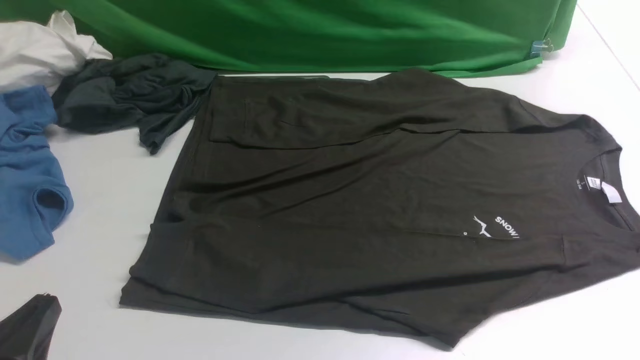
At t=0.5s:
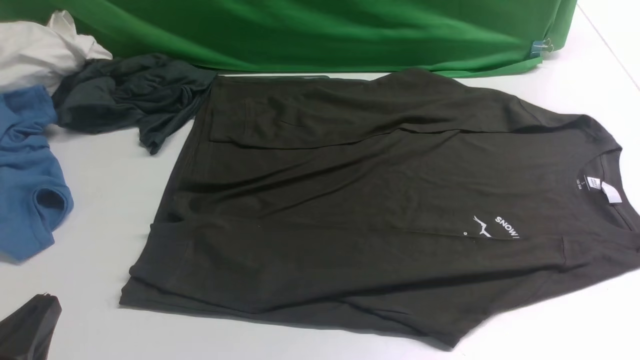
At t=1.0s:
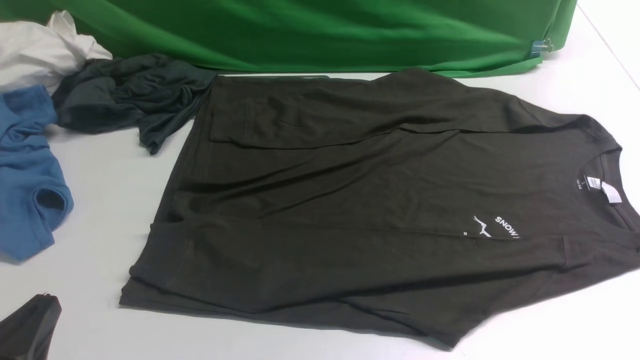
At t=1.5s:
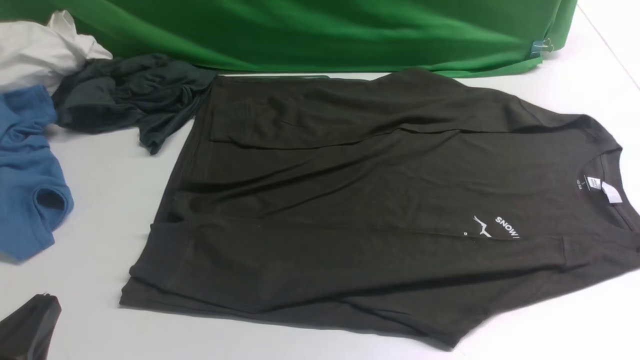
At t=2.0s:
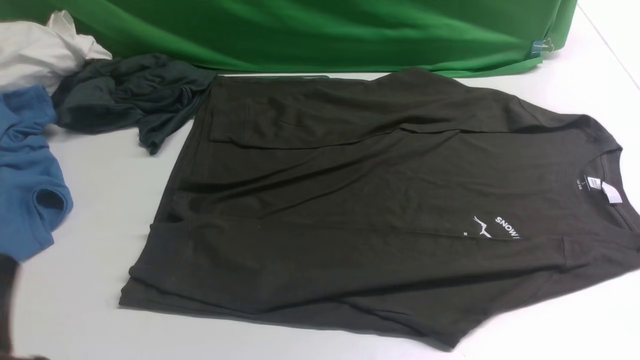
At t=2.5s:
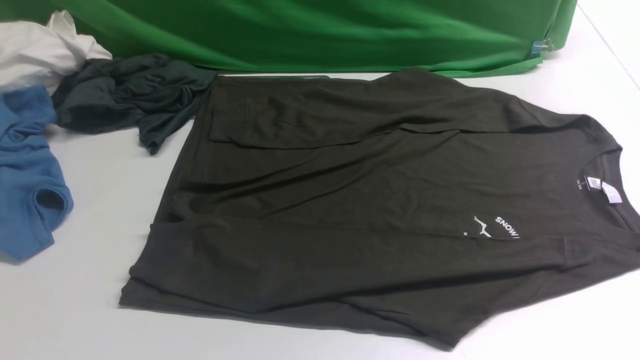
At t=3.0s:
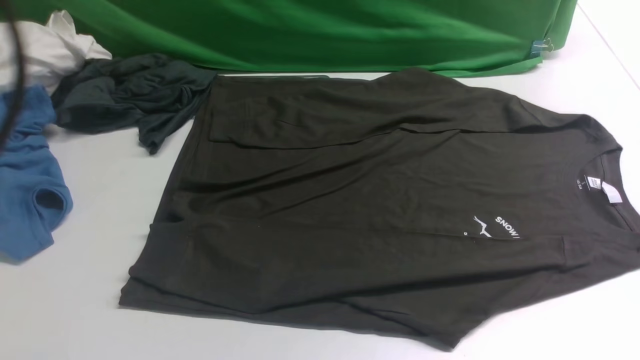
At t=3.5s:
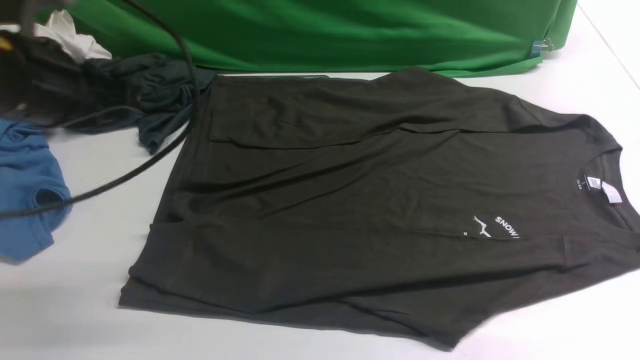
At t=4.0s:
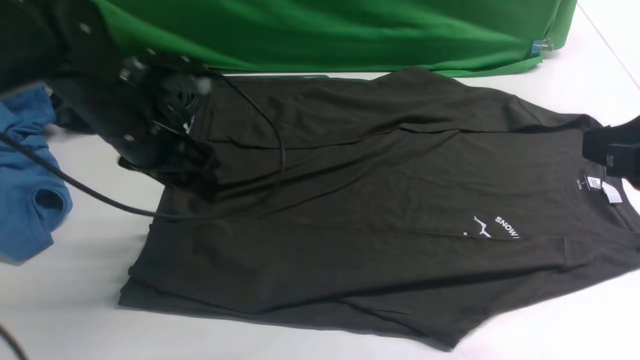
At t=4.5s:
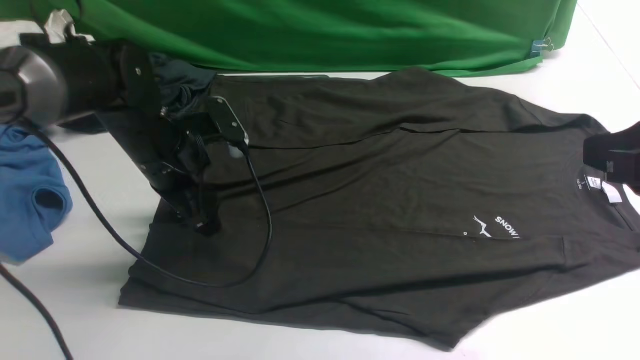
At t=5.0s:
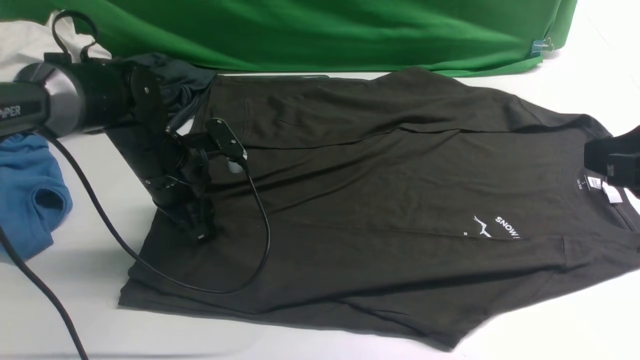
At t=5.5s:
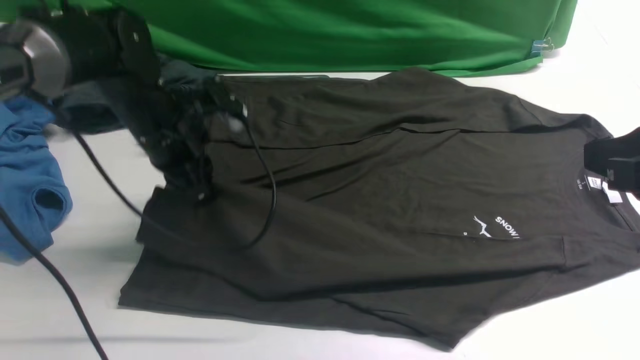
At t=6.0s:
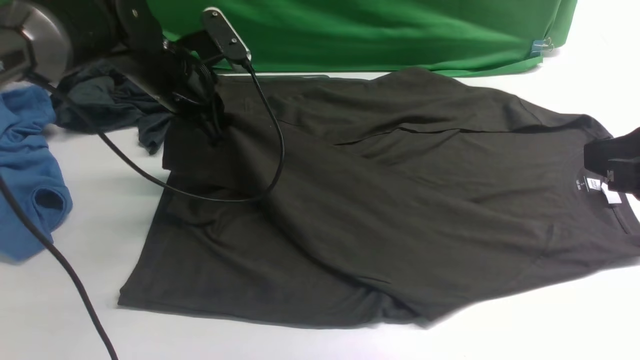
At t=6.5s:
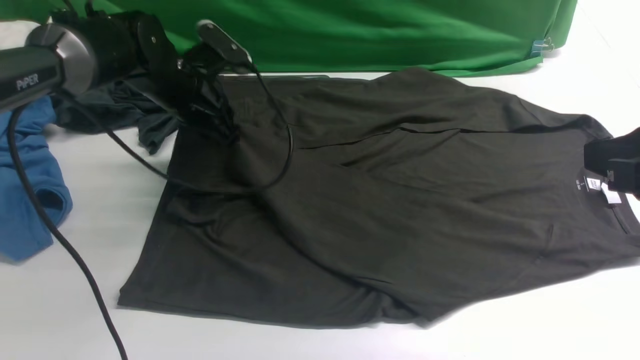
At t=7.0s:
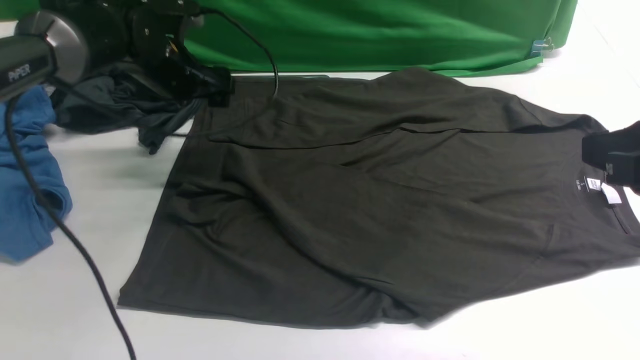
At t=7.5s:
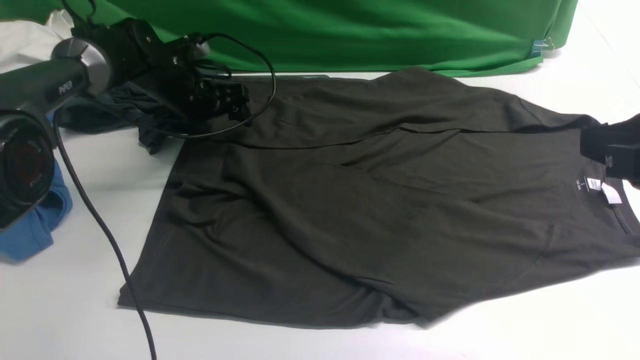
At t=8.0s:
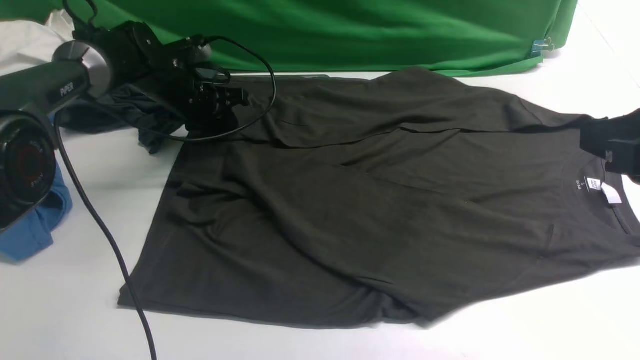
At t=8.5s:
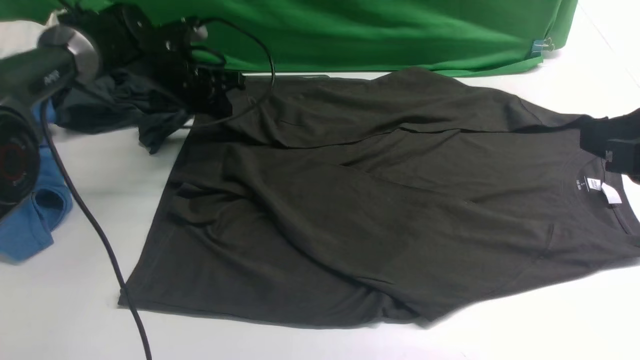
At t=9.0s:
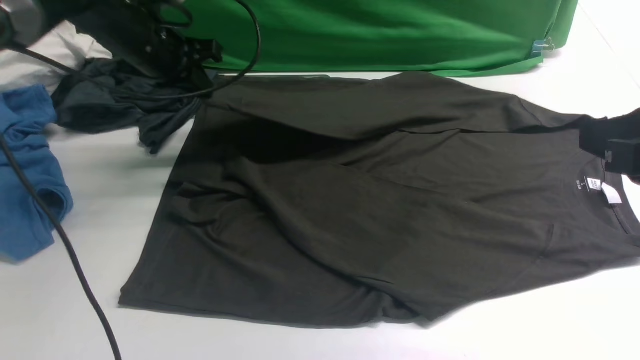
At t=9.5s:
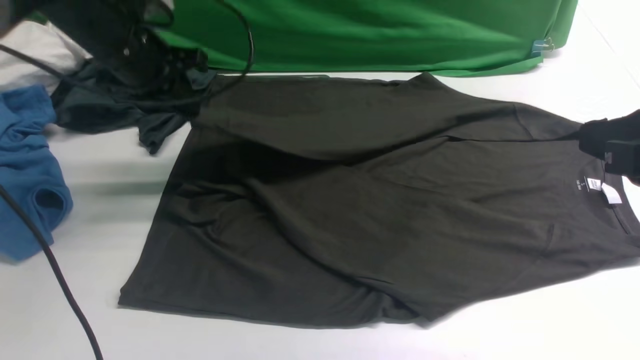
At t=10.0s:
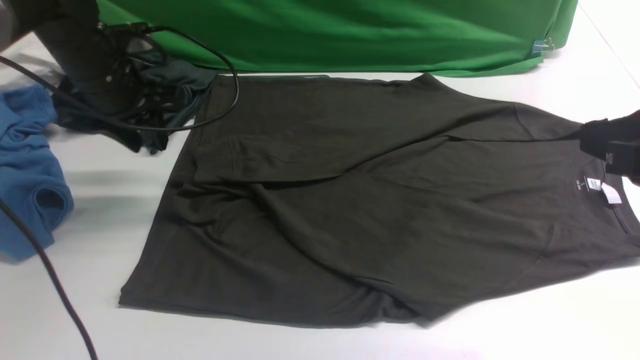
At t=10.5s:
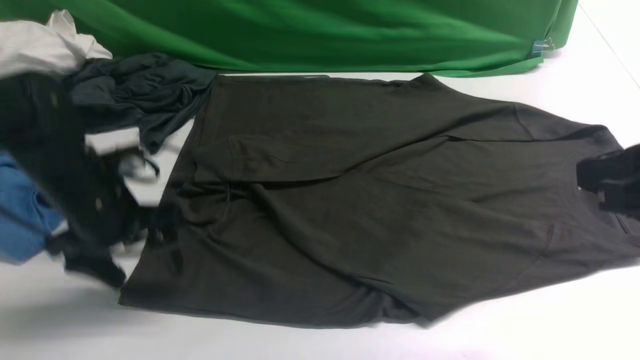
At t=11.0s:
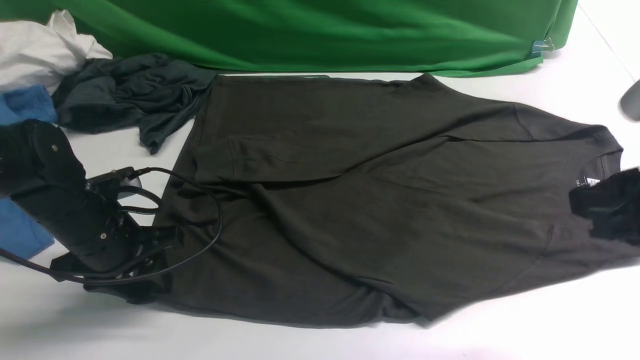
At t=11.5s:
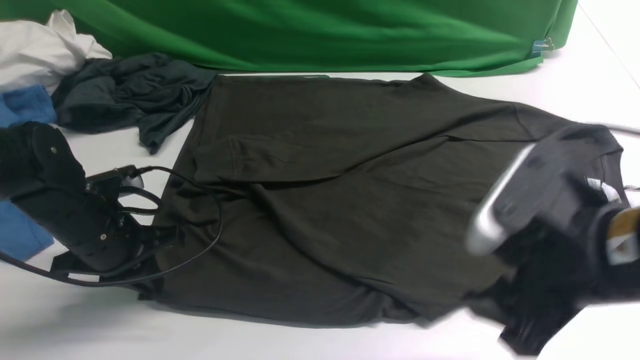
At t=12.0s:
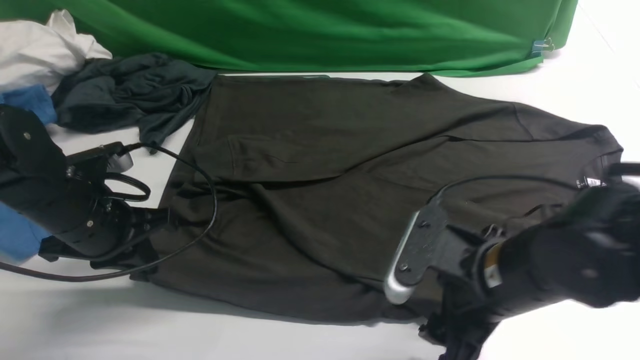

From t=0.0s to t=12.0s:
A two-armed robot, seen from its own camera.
Step, from t=0.0s to t=5.0s: use the left arm to clamp the cuff closest to it.
Step, from t=5.5s to t=6.5s: use the left arm to drag and place the cuff at the centered position on the left edge of the fabric.
Step, from t=7.0s to t=8.5s: use the left arm to clamp the cuff farthest from it.
Step, from t=9.0s to t=10.0s: use the left arm to drag and drop the cuff onto the cuff closest to the left arm.
From t=2.0s to t=4.0s: The right gripper goes some 20 cm forward, upward and to the left. Meanwhile the left gripper is displaced forward by about 30 cm, and opens its fingers.
From t=4.0s to t=6.0s: The left gripper heads forward, covering about 10 cm, and closes its fingers.
From t=6.0s to t=8.0s: The left gripper is displaced forward and downward by roughly 10 cm, and opens and closes again.
From t=8.0s to t=10.0s: The left gripper shifts some 15 cm backward and upward.
From t=10.0s to t=12.0s: The right gripper travels downward and to the left by roughly 20 cm, and opens its fingers; the left gripper heads backward and downward, covering some 15 cm, and closes its fingers.

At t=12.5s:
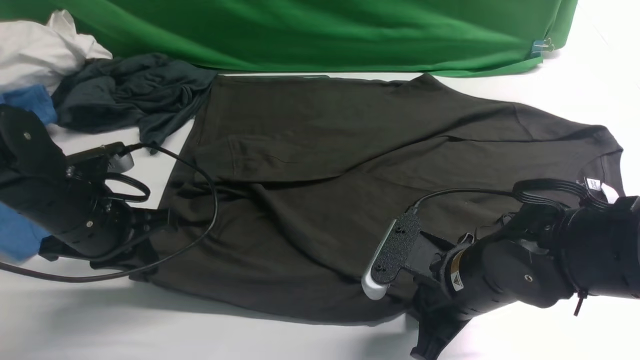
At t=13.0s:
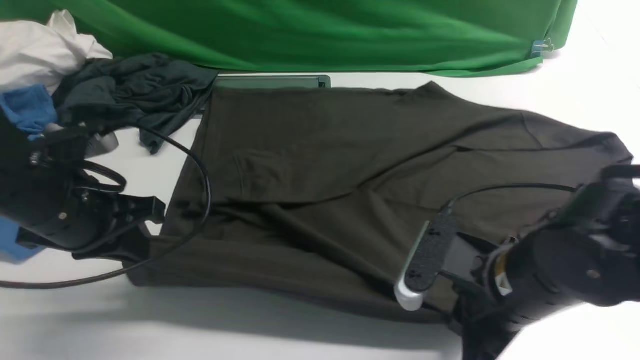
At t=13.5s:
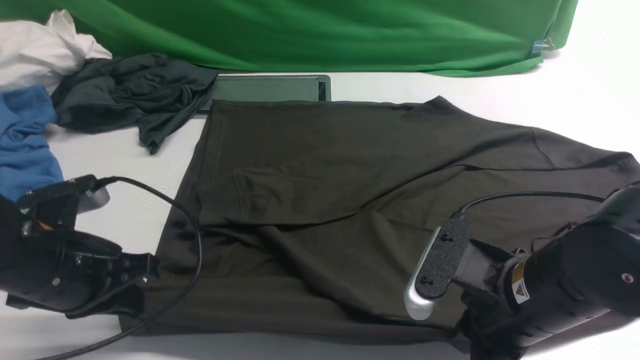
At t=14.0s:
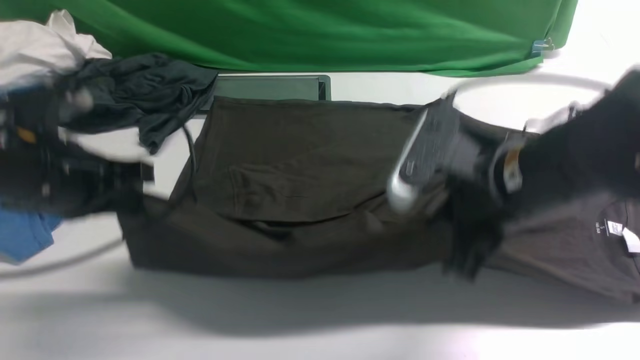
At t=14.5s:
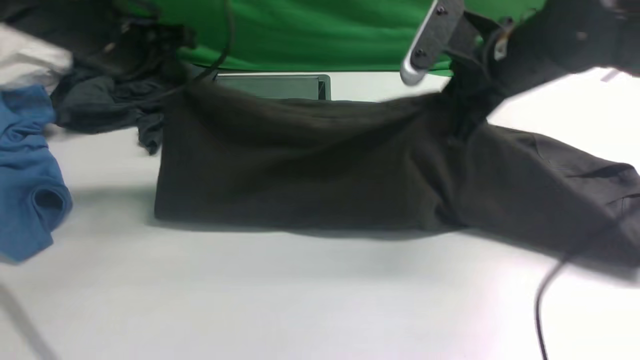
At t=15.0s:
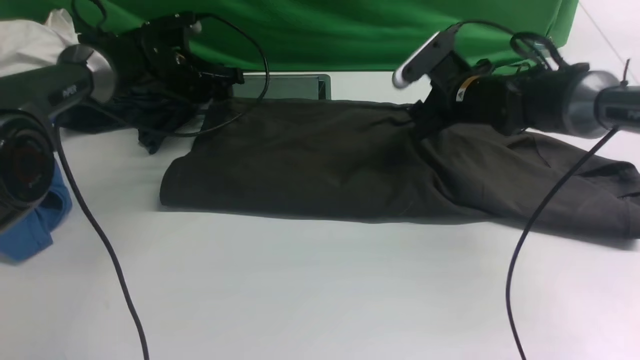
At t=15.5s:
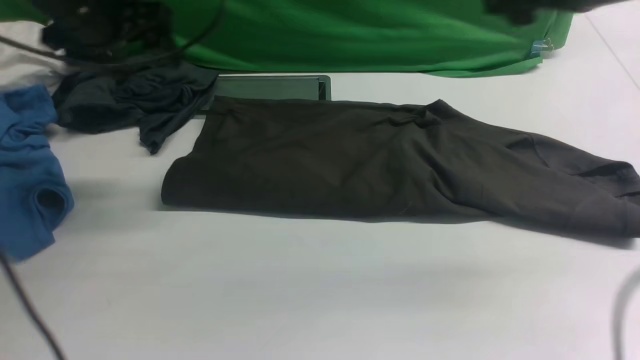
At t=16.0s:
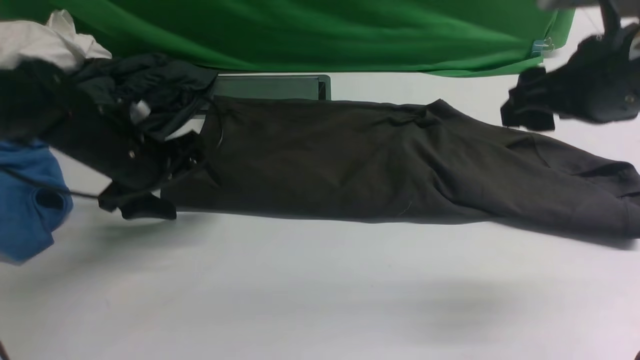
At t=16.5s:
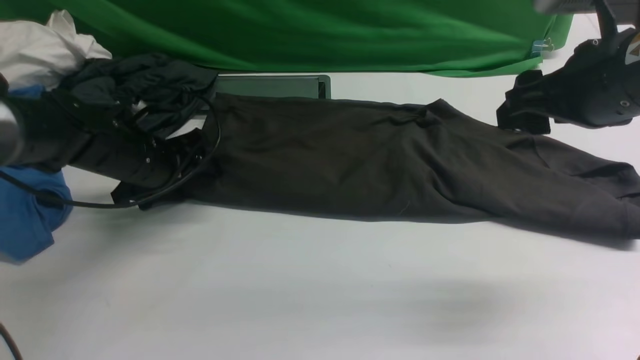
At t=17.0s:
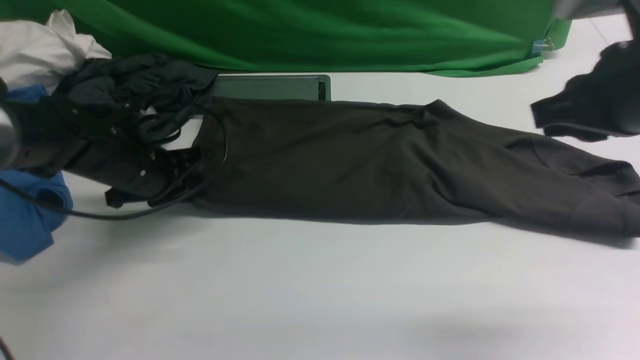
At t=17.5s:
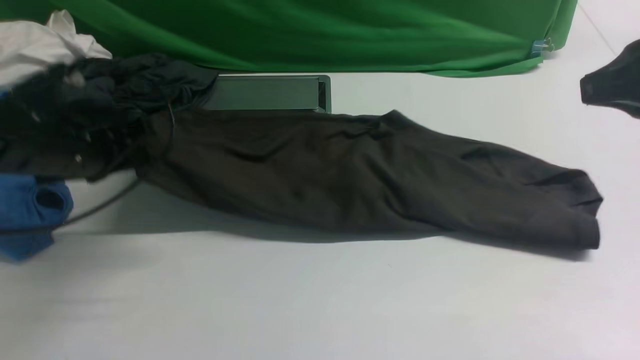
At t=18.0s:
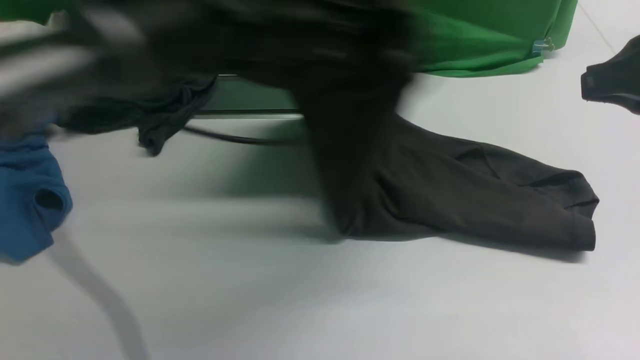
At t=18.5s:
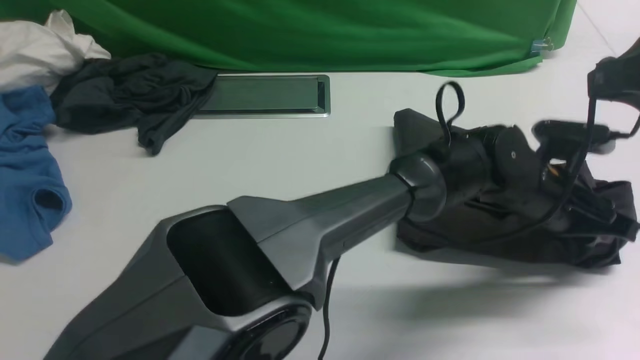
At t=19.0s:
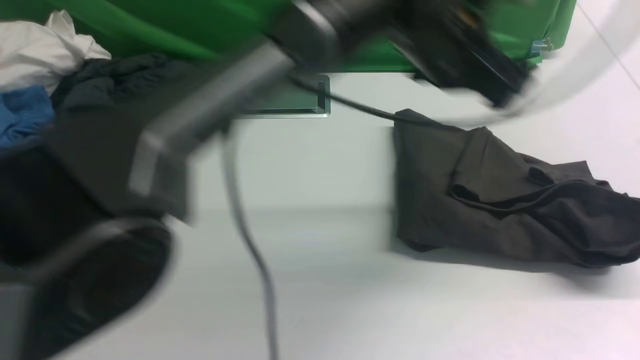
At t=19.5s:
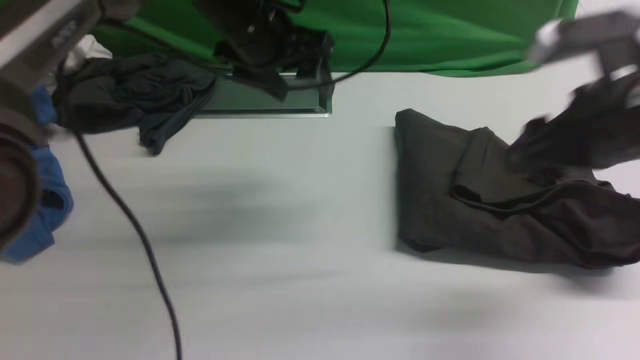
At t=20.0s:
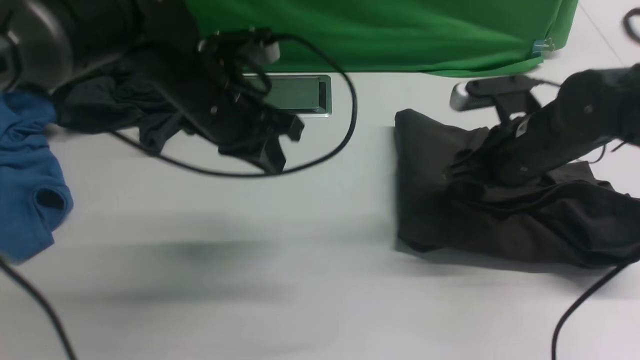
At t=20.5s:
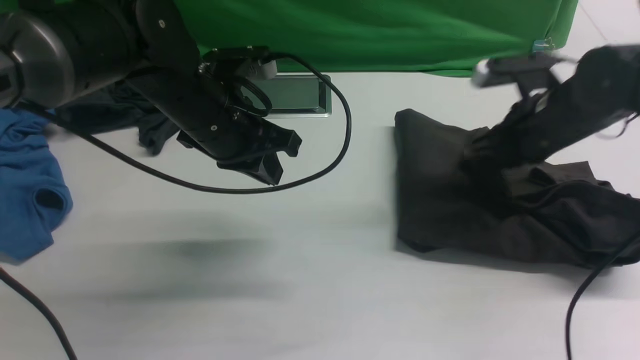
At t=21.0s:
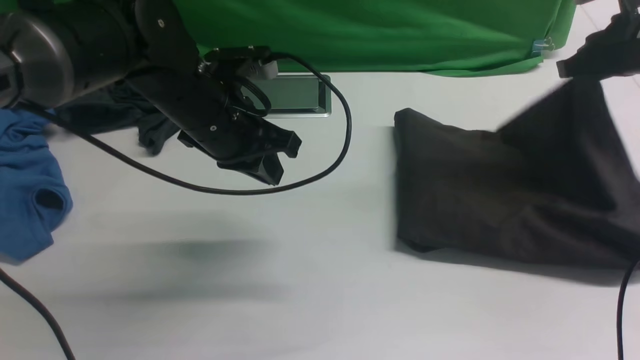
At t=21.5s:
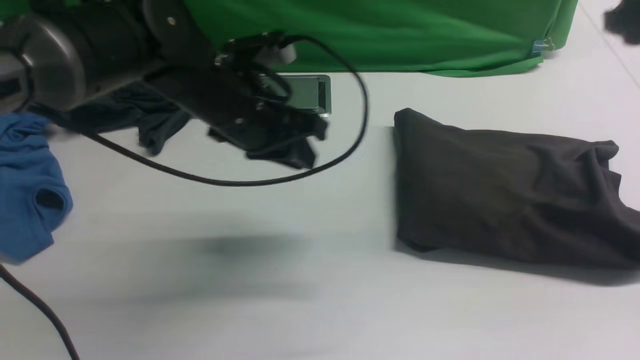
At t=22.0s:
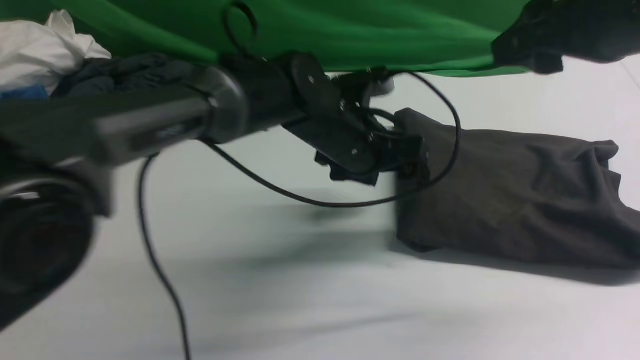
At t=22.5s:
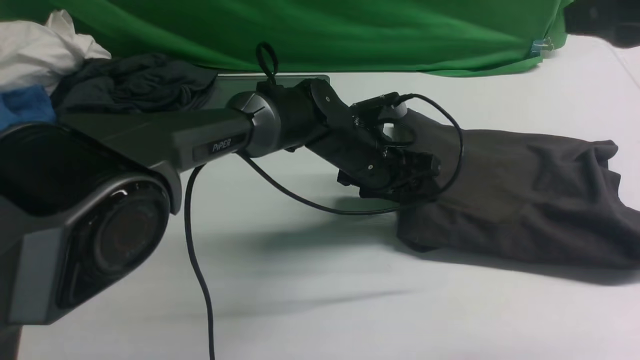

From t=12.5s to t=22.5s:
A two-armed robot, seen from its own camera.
Step, from t=13.5s to t=15.5s: use both arms to drag the lower edge of the fabric forward and fold it over the upper edge.
Step, from t=16.0s to t=17.0s: Hold the left edge of the fabric with your left arm.
Step, from t=17.5s to t=18.5s: Drag the left edge of the fabric to the left with your left arm and fold it to the right edge.
From t=12.5s to t=14.5s: The two grippers go about 20 cm forward and upward.
From t=14.5s to t=16.5s: The left gripper swings up and down, approximately 15 cm each way, with 2 reversals, and opens. The right gripper moves up and down over approximately 15 cm, changing direction 2 times, and opens up.
From t=16.5s to t=18.5s: The left gripper moves to the right, approximately 40 cm. Meanwhile the right gripper goes some 10 cm backward and upward, and closes.
From t=18.5s to t=20.5s: The left gripper shifts approximately 30 cm to the left, and closes up. Meanwhile the right gripper is displaced downward and forward by about 25 cm, and opens, then closes once more.
From t=20.5s to t=22.5s: The left gripper moves to the right, downward and forward, approximately 20 cm, and opens up, while the right gripper goes about 25 cm upward and backward, and opens its fingers.
